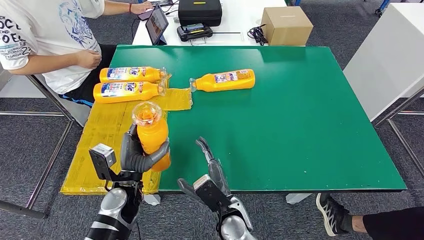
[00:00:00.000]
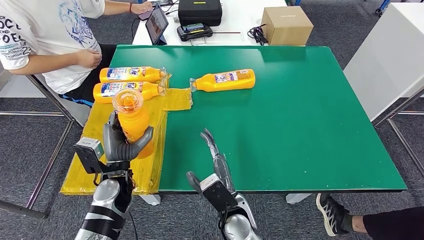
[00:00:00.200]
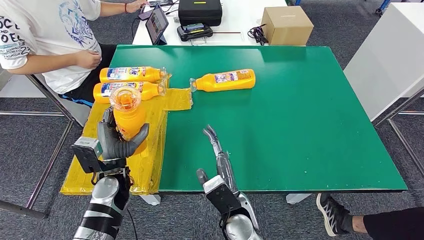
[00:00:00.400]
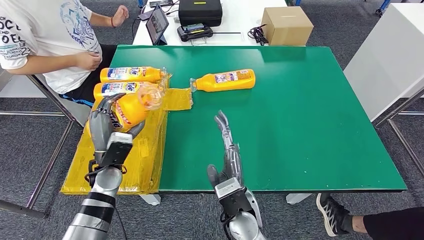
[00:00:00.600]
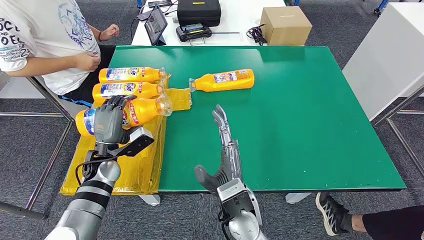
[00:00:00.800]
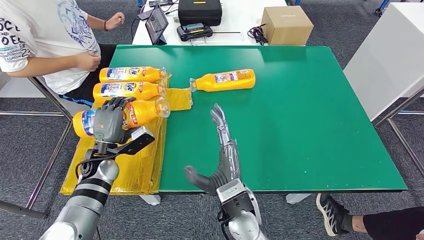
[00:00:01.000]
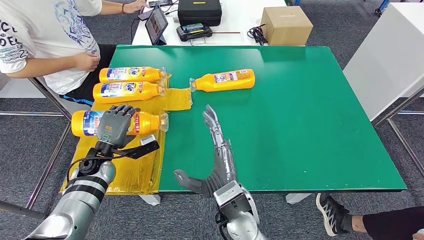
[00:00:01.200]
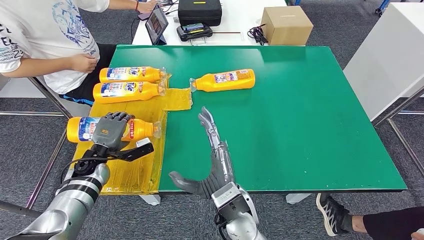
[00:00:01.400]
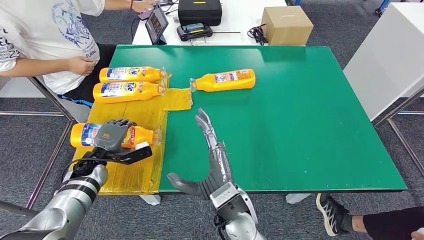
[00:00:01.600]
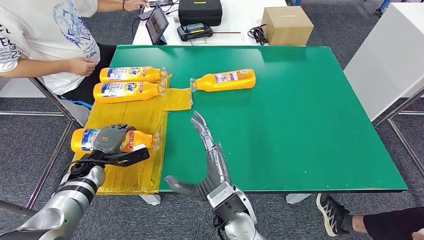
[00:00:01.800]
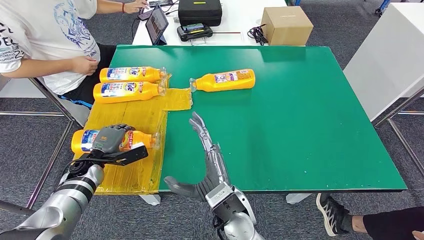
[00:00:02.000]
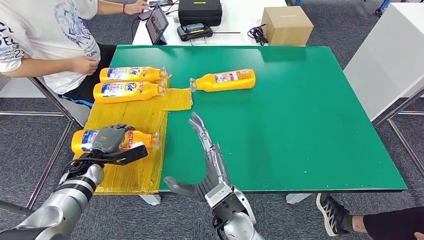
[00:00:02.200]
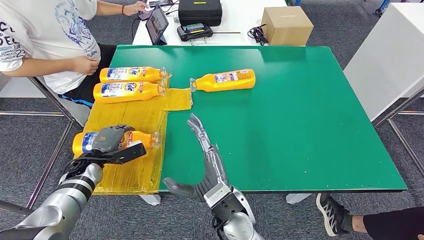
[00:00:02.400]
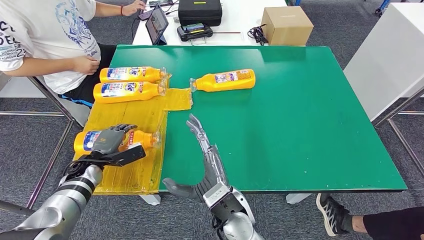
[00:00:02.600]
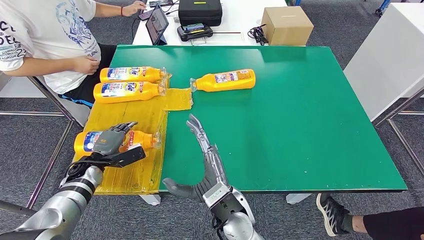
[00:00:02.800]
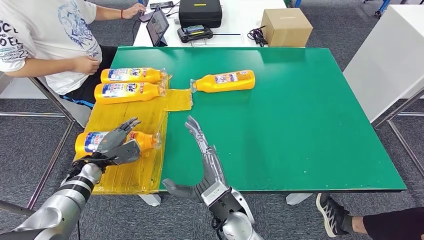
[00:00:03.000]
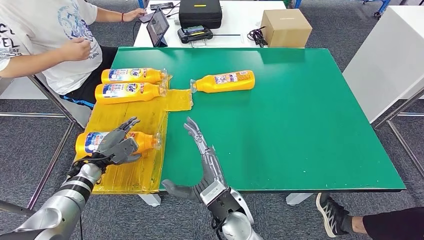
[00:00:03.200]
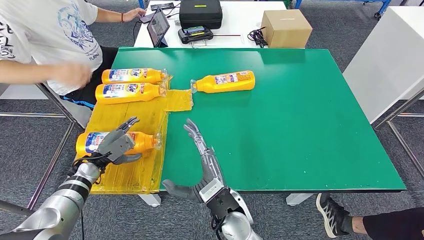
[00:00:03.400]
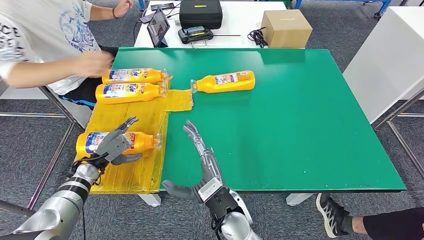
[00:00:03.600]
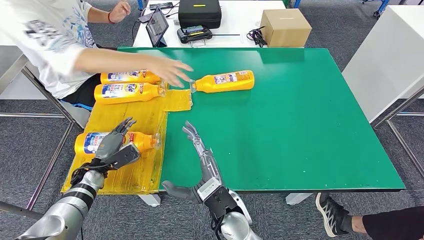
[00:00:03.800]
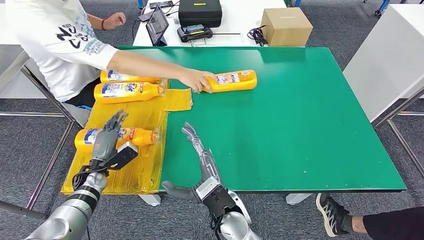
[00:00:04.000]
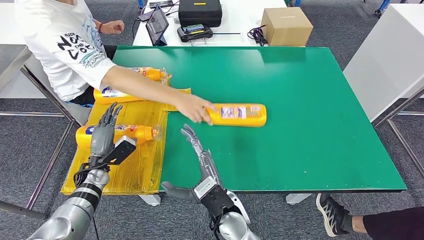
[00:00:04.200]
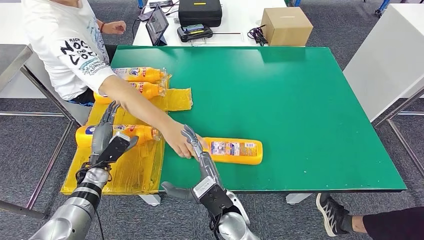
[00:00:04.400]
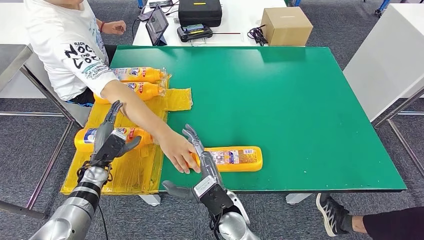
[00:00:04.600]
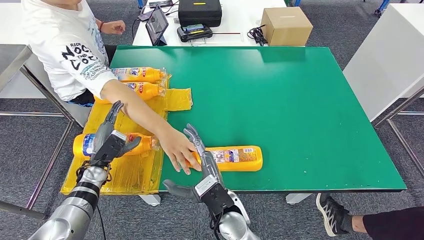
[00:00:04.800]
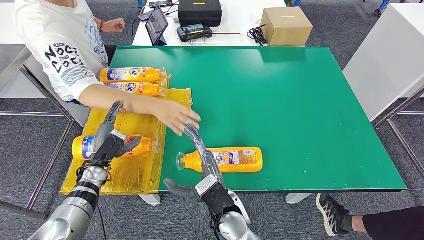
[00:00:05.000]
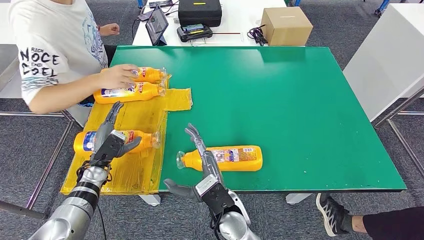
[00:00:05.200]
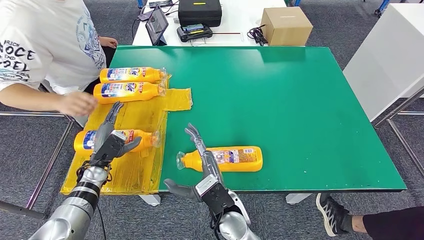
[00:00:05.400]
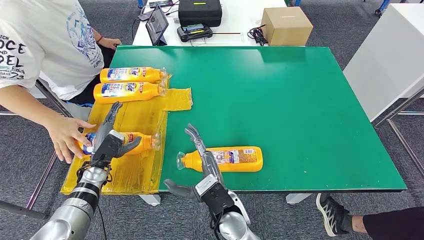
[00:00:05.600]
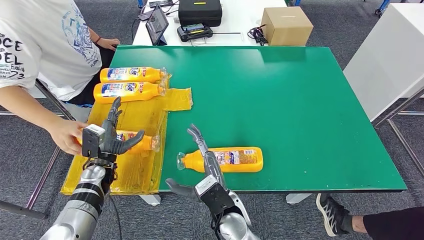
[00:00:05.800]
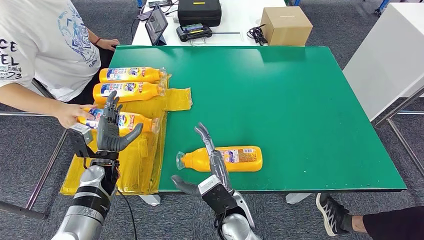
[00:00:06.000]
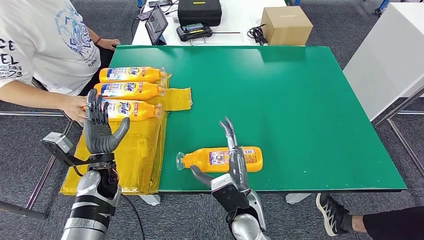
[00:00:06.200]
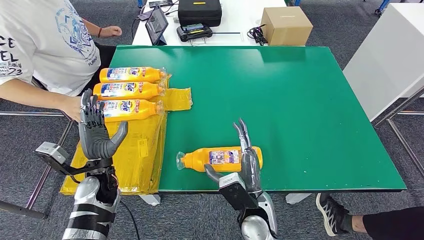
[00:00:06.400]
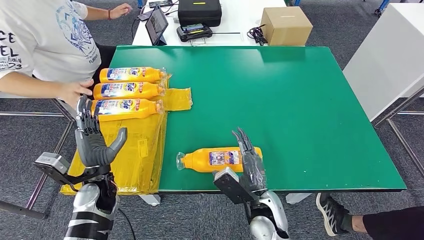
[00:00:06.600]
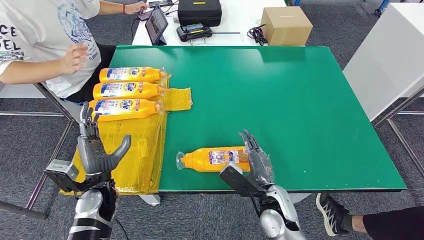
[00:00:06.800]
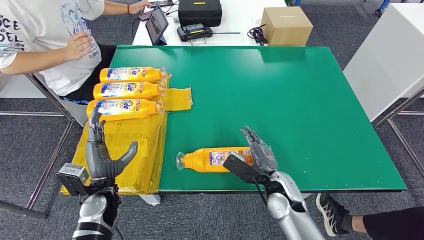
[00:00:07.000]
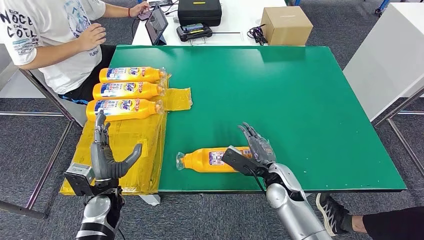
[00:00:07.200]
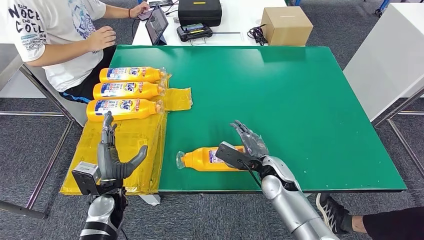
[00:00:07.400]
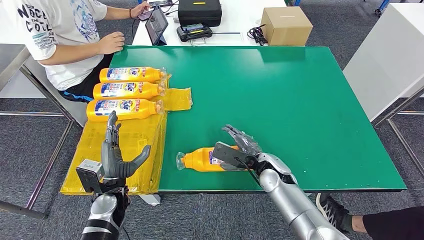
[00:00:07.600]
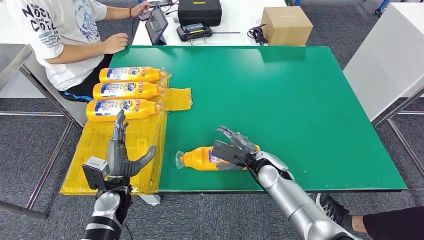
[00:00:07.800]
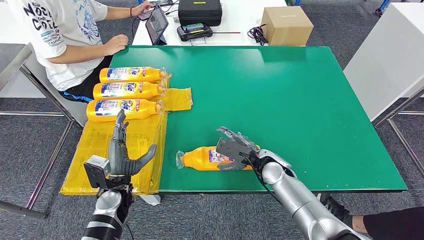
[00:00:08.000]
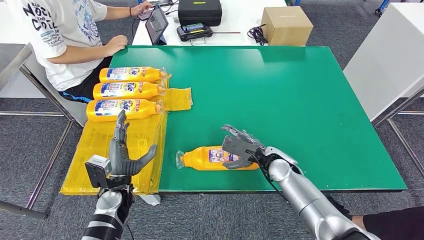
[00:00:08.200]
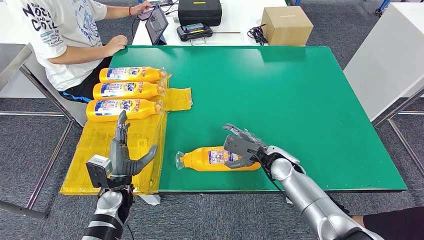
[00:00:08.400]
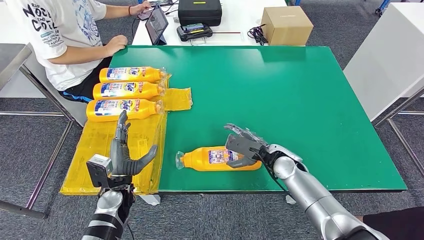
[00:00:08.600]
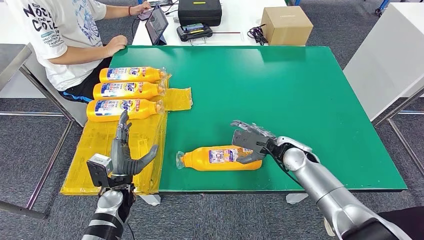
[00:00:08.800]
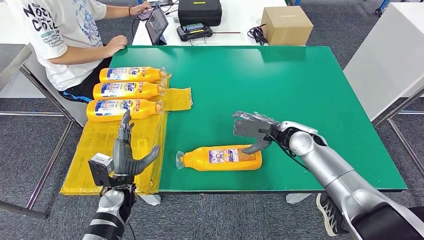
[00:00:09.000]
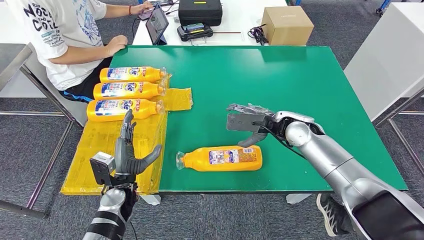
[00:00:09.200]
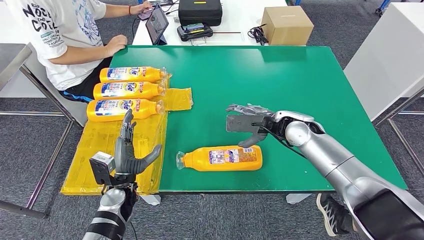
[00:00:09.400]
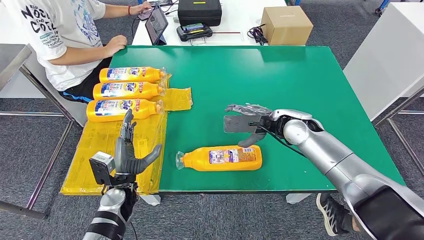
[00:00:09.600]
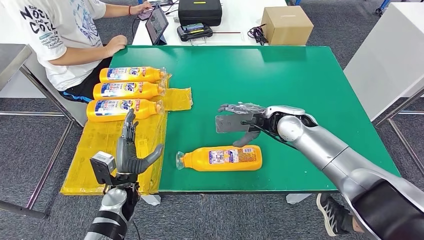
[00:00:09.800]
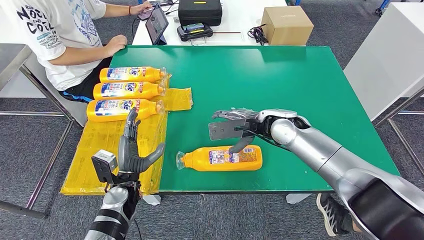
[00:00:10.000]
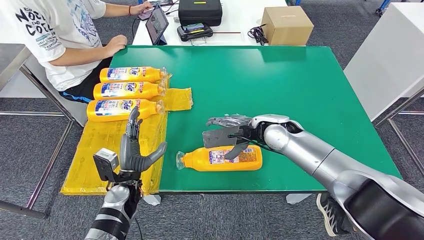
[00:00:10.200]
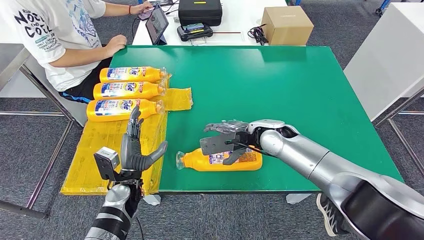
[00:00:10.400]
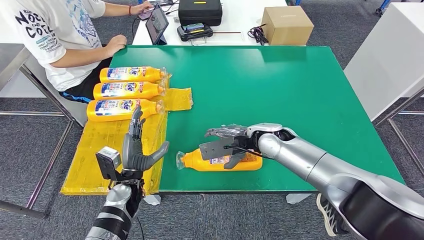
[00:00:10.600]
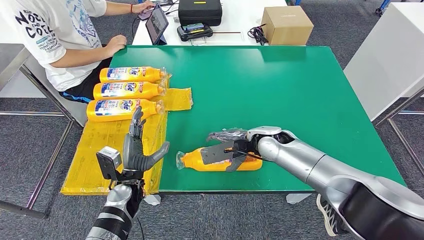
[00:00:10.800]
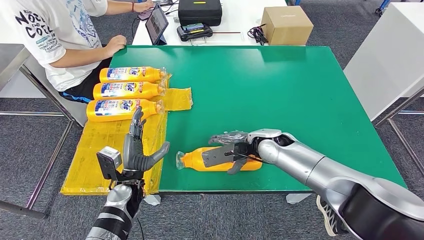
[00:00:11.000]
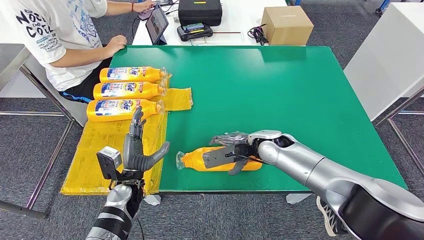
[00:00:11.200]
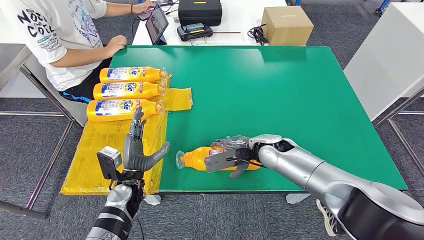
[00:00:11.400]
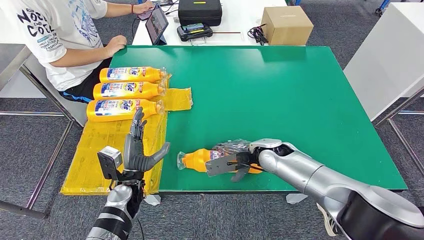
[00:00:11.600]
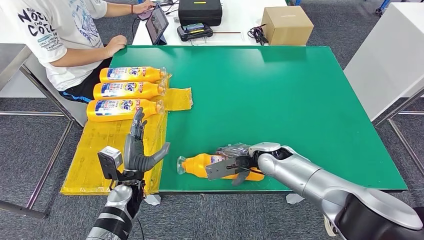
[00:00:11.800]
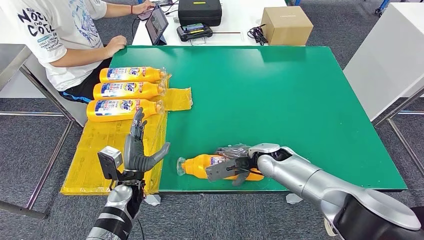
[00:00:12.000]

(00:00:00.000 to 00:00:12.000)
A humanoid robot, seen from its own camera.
00:00:00.000 - 00:00:01.600: The left hand heads to the left and forward, covering about 15 cm, while the right hand shifts roughly 10 cm upward.
00:00:07.600 - 00:00:09.000: The right hand is displaced upward, to the right and forward by roughly 10 cm.
00:00:09.000 - 00:00:10.400: The right hand shifts approximately 10 cm to the left.
00:00:10.400 - 00:00:12.000: The right hand goes roughly 10 cm downward.

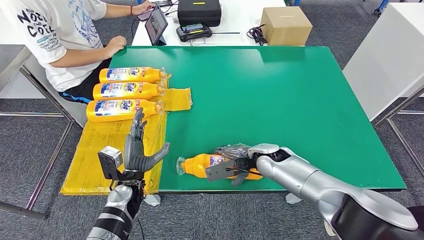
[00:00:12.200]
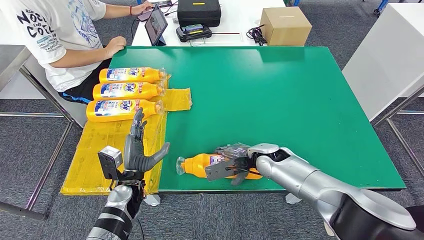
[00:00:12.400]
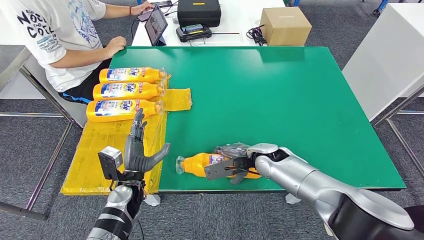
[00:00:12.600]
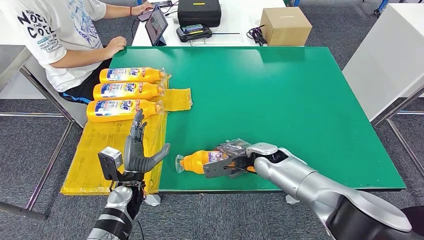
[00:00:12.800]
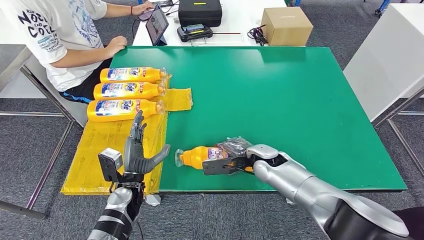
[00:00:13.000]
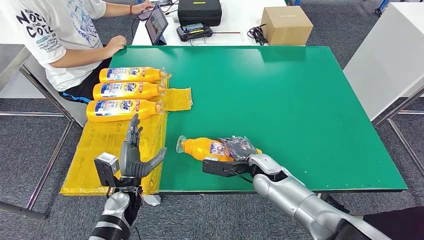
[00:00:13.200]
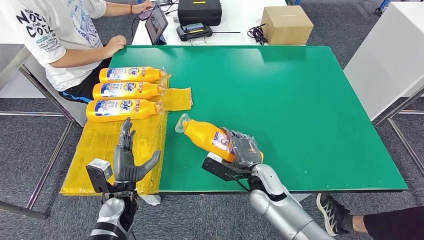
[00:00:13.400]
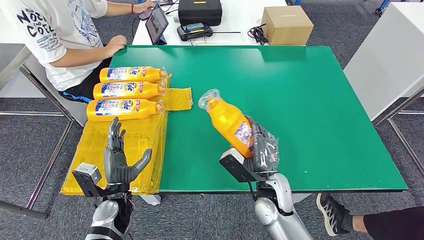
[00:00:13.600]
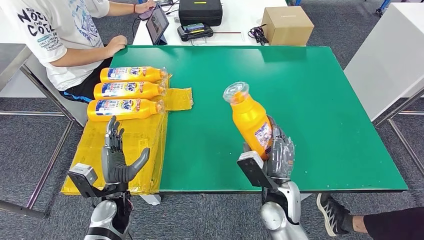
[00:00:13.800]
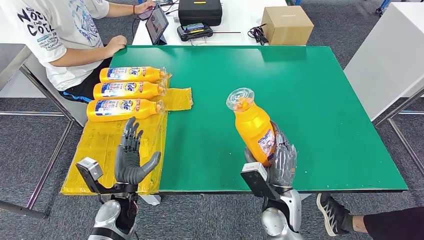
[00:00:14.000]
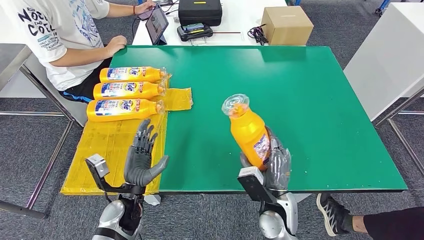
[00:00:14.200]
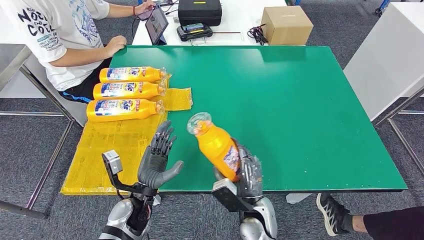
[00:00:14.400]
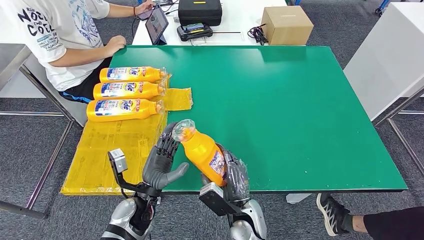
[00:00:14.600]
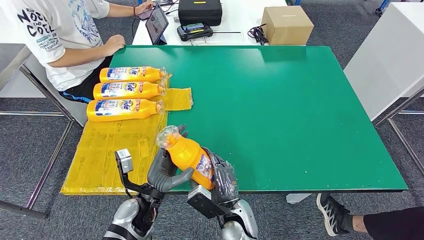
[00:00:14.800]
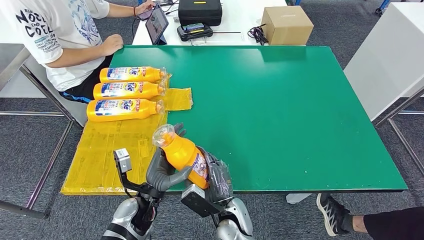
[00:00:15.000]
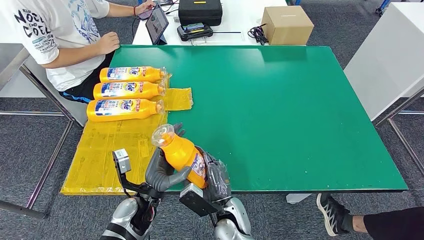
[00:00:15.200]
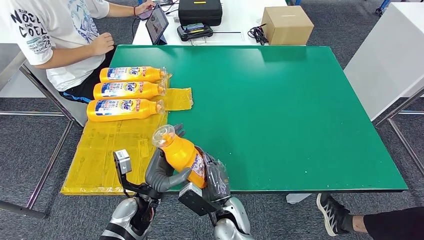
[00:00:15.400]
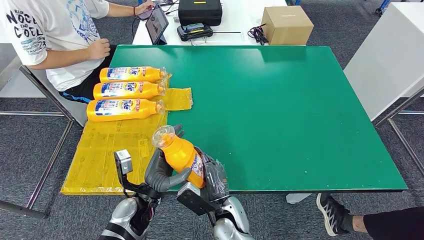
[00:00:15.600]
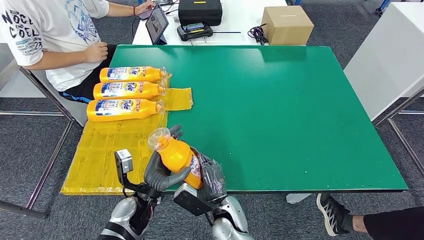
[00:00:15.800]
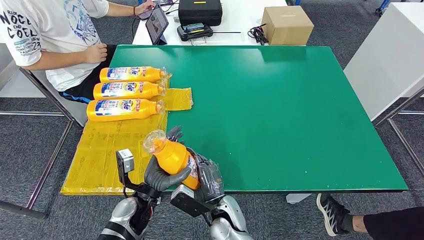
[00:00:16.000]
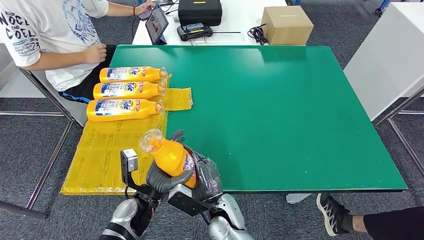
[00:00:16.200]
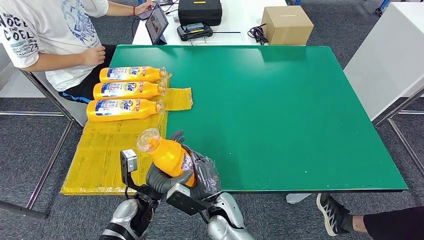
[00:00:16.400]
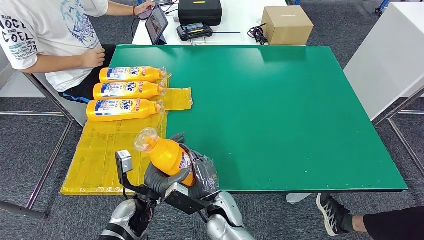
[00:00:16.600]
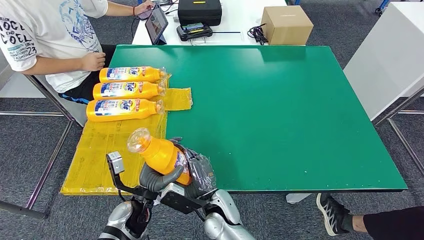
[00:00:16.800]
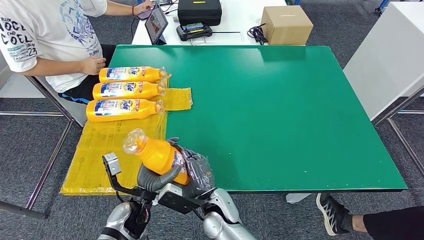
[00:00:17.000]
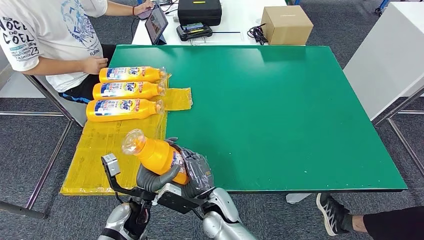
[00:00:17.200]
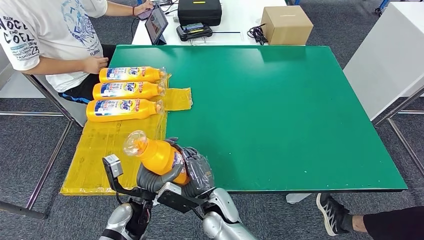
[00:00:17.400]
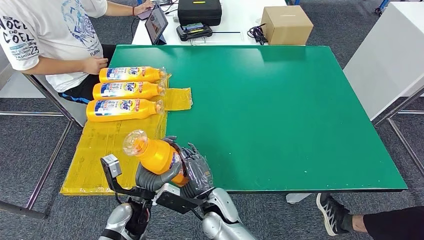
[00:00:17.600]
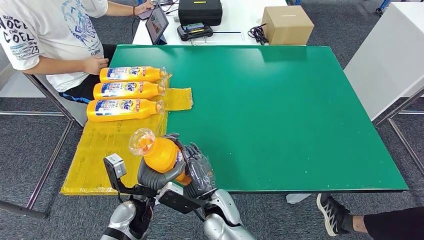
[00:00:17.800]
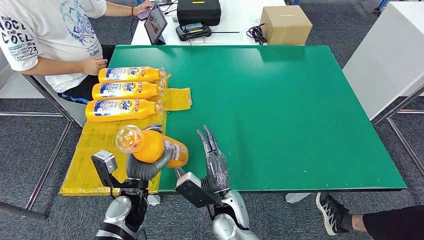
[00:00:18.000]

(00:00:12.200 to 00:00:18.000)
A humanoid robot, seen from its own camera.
Step, 00:00:12.200 - 00:00:15.000: Pick up the fast-moving consumer goods bottle from the table.
00:00:12.200 - 00:00:13.600: The right hand moves backward, approximately 10 cm.
00:00:13.600 - 00:00:15.000: The right hand goes some 10 cm to the left and downward. Meanwhile the left hand shifts roughly 5 cm to the right.
00:00:15.000 - 00:00:16.600: The hands make only small movements.
